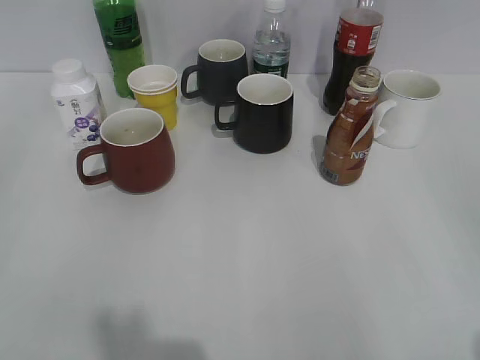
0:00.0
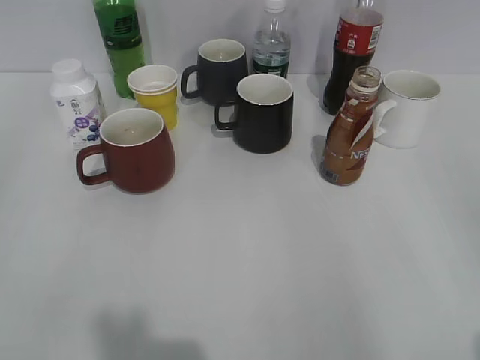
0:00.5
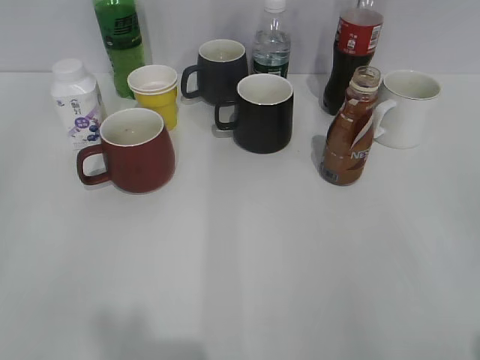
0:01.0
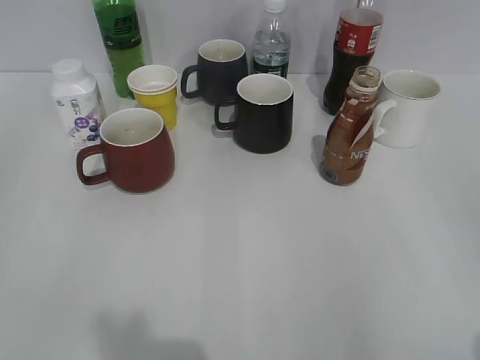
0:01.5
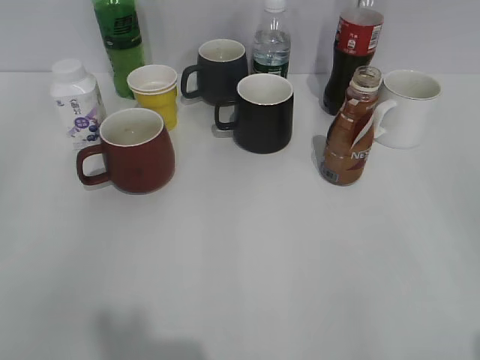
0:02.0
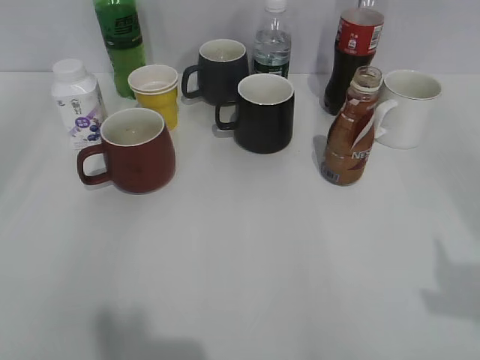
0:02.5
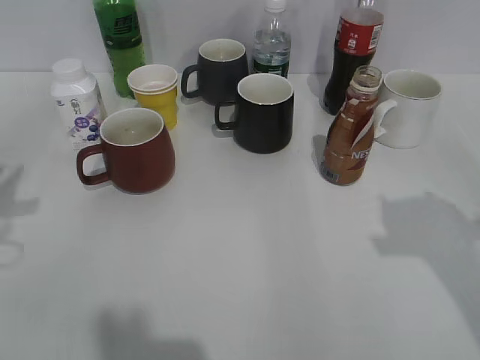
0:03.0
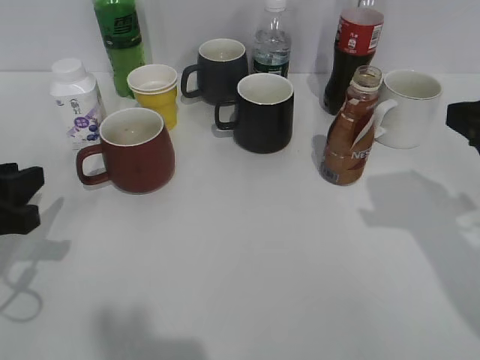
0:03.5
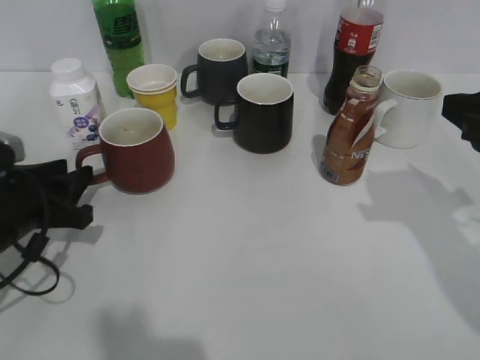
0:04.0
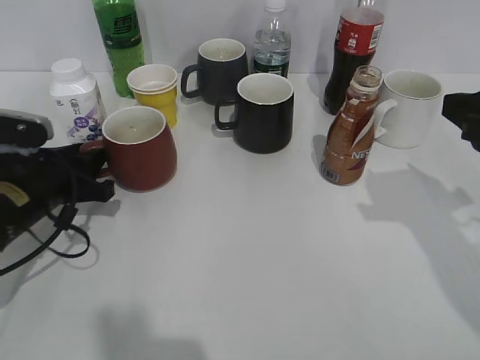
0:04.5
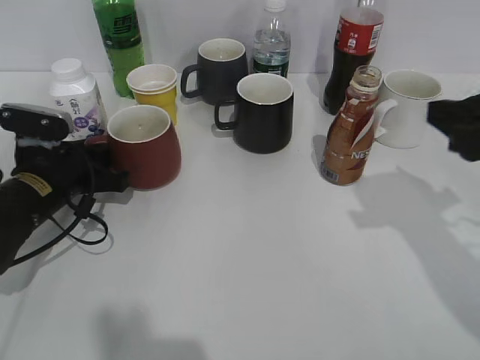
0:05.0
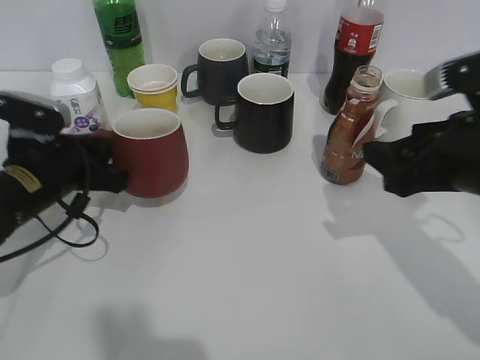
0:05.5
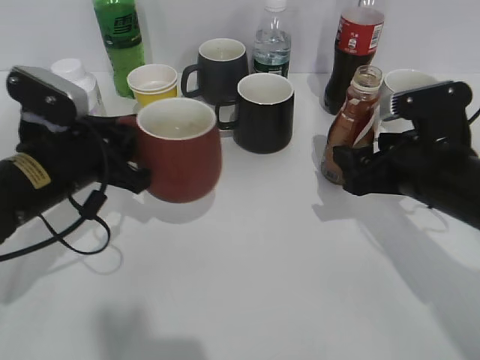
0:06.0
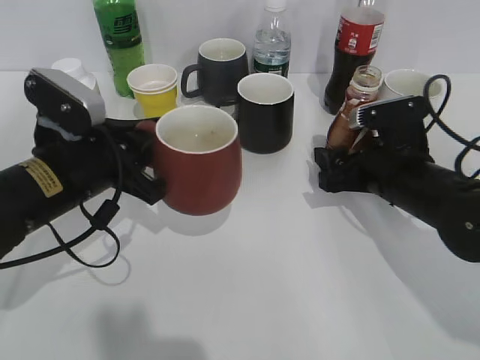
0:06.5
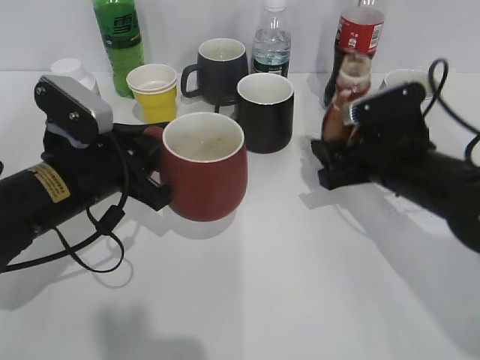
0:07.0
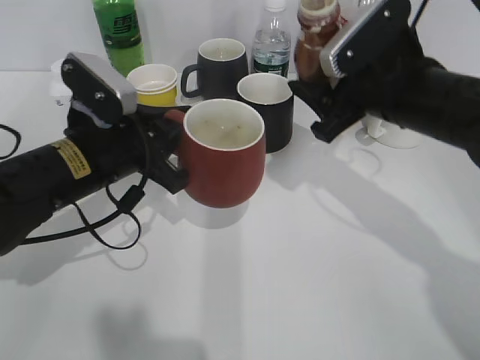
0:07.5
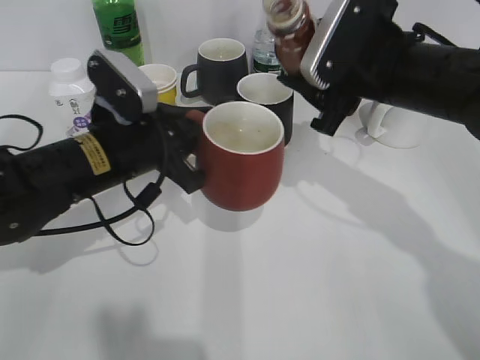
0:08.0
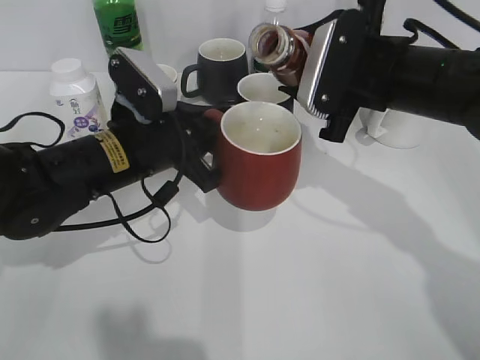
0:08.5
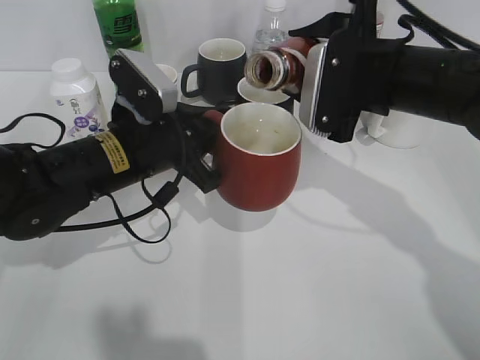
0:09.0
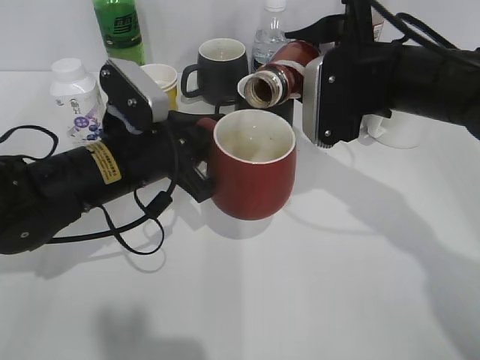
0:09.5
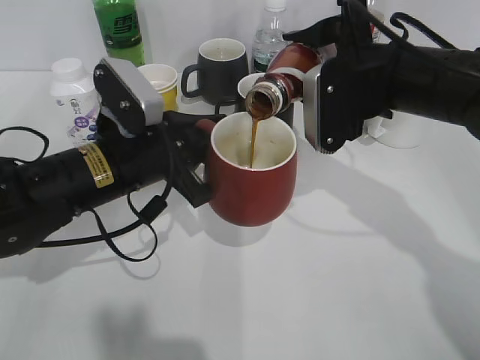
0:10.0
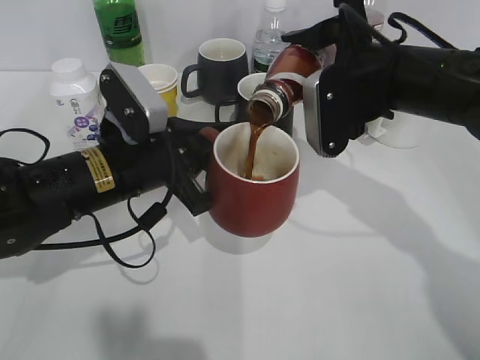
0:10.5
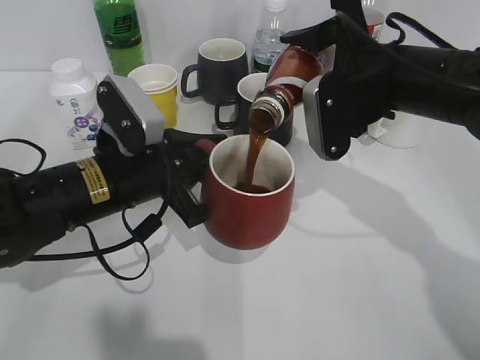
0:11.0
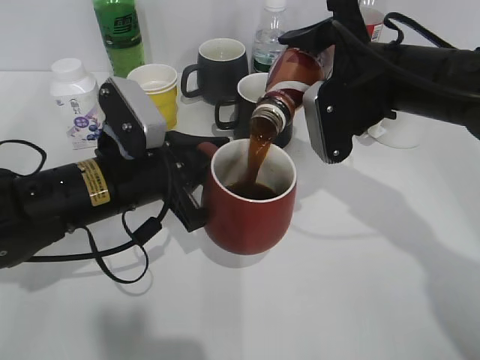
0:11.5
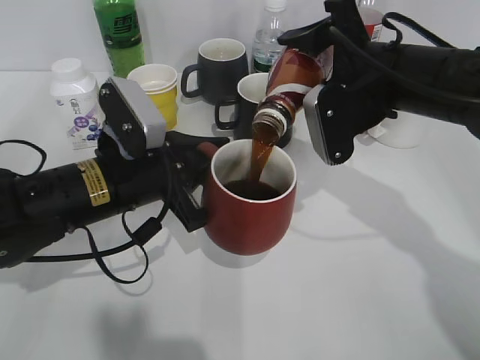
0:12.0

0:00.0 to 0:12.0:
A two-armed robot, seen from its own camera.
Step, 0:02.0 to 0:05.0: Grasp the red cup with left gripper.
Step, 0:05.5 to 0:06.5: Grasp the bottle with coffee with right gripper.
0:02.0 to 0:04.0: The left gripper is displaced forward and downward by some 25 cm. Meanwhile the right gripper travels forward by approximately 20 cm.
0:04.0 to 0:06.0: The right gripper moves downward and to the left, roughly 10 cm, and opens its fingers. Meanwhile the left gripper heads to the right, covering about 5 cm, and closes up.
0:06.0 to 0:08.0: The right gripper shifts approximately 10 cm upward, to the left and forward, and closes up; the left gripper goes approximately 5 cm to the right.

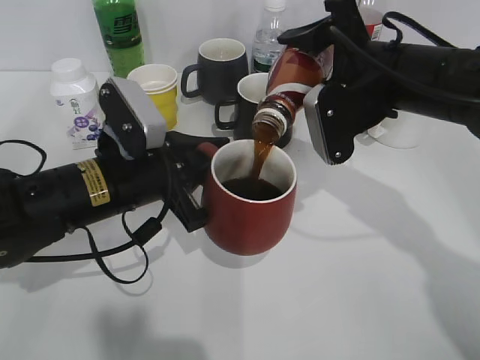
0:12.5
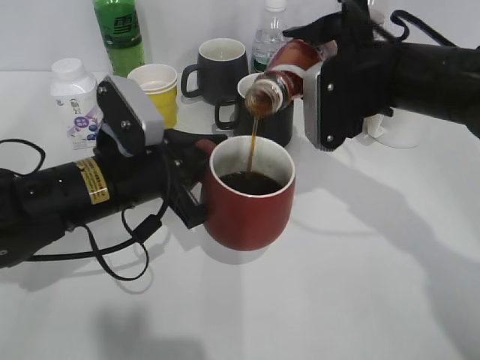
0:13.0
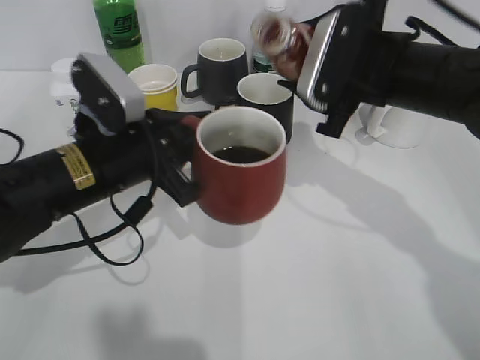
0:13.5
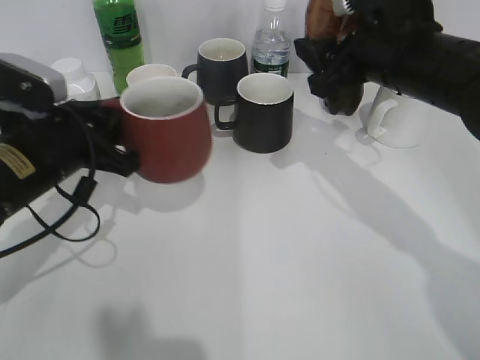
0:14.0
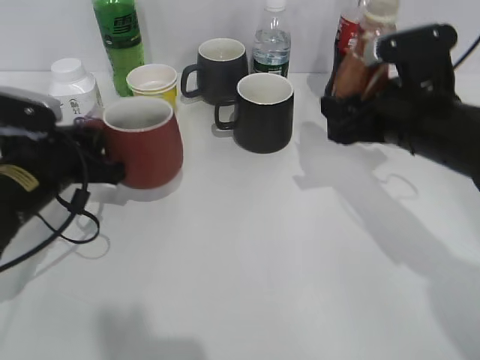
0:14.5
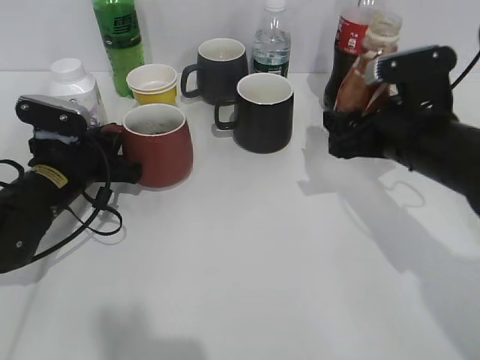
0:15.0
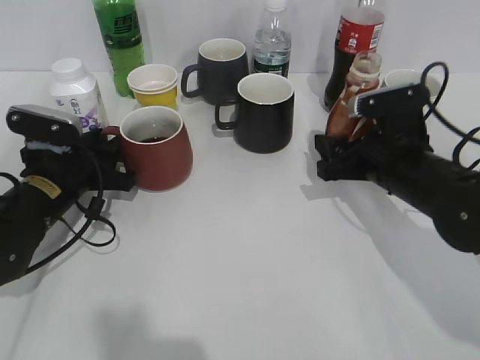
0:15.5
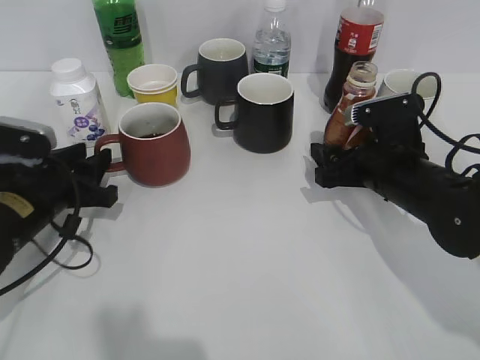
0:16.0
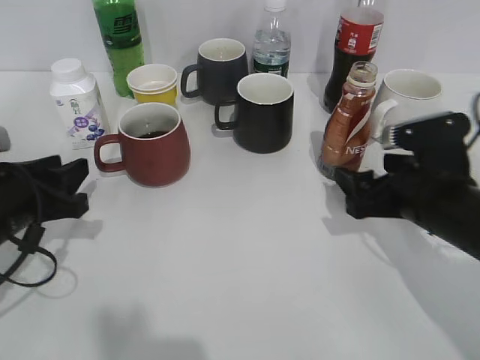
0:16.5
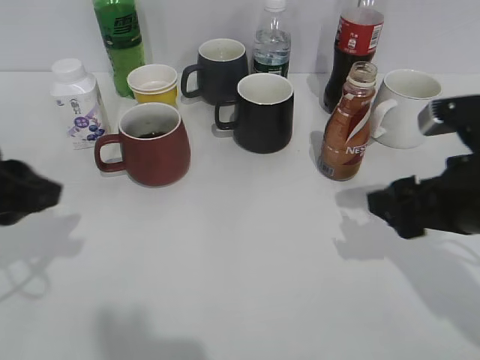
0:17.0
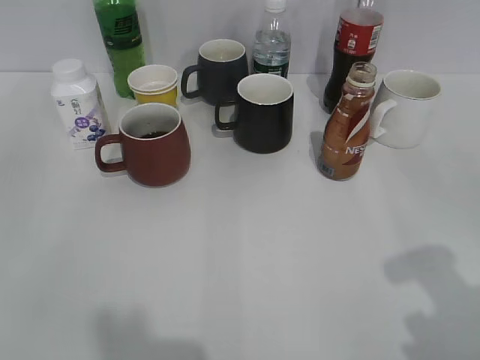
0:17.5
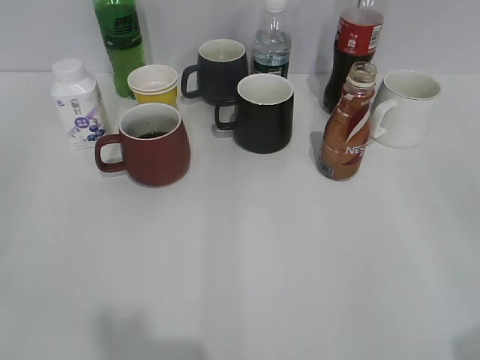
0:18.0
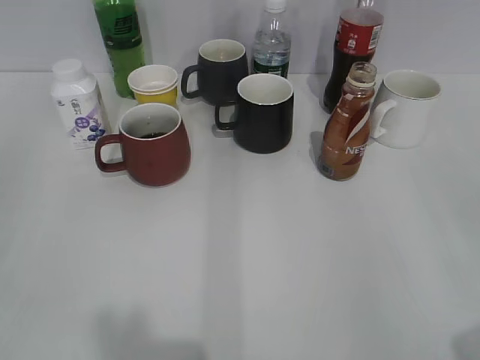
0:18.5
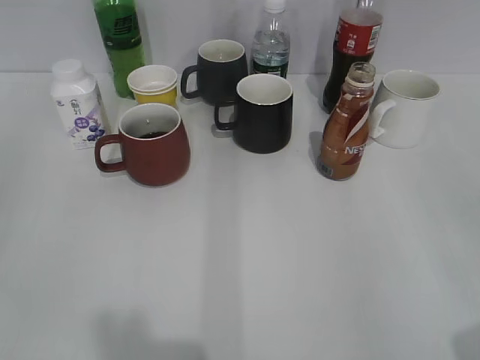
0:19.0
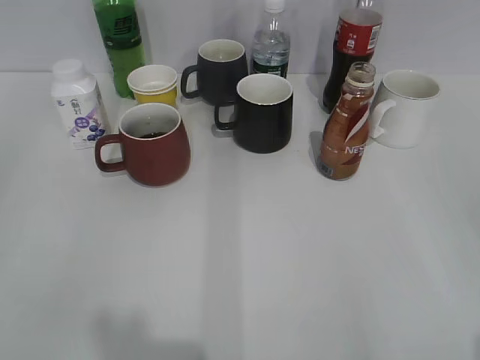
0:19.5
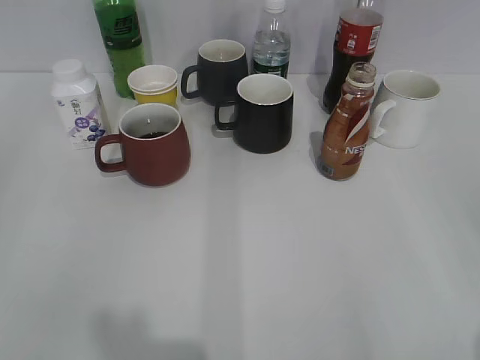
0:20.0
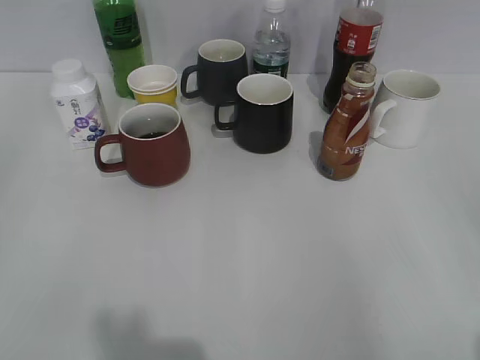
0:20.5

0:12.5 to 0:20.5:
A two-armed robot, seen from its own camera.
Step, 0:14.0 to 0:14.5: Place the red cup on the table with left gripper.
Step, 0:15.0 to 0:16.5: Place the coffee bottle on the table with right gripper.
0:12.5 to 0:14.5: The left gripper goes about 10 cm to the left; the right gripper shifts by roughly 5 cm.
0:14.5 to 0:16.5: The left gripper moves backward, roughly 5 cm, and opens; the right gripper shifts approximately 5 cm downward, and opens.
0:16.5 to 0:18.5: The right gripper is displaced backward, upward and to the right by roughly 30 cm; the left gripper moves backward and upward, about 25 cm.

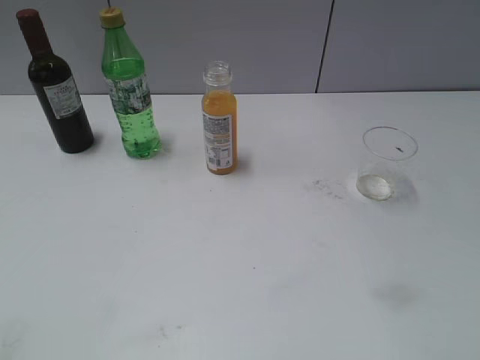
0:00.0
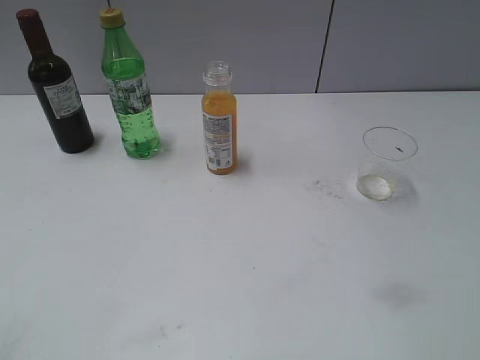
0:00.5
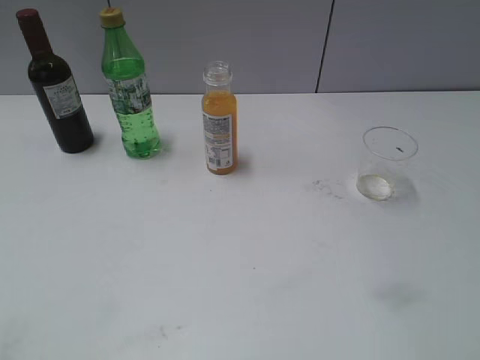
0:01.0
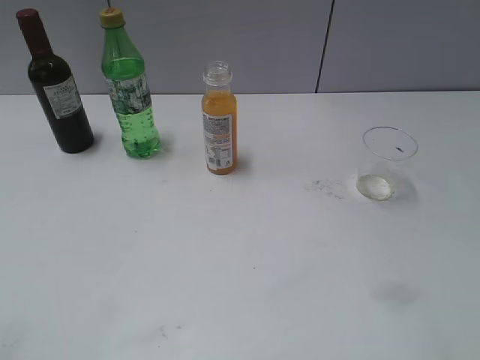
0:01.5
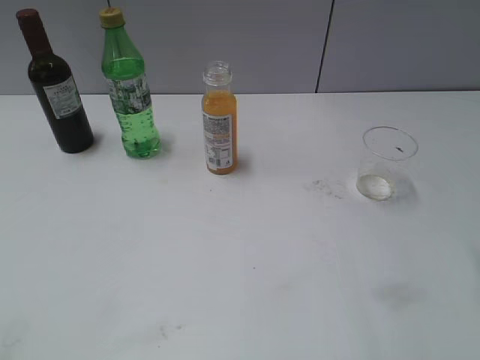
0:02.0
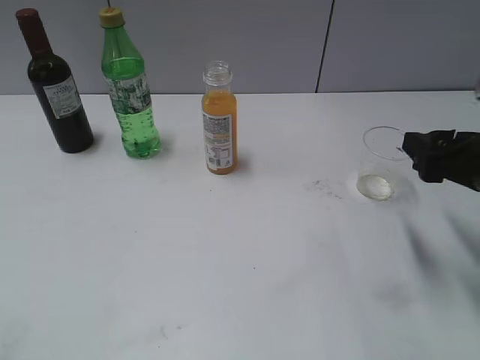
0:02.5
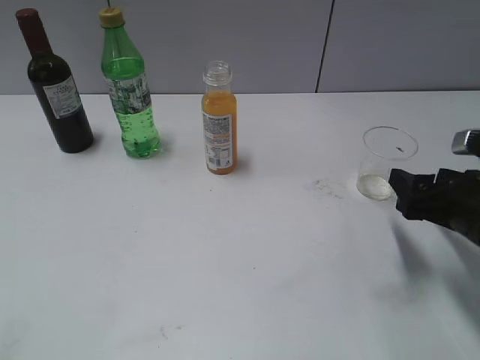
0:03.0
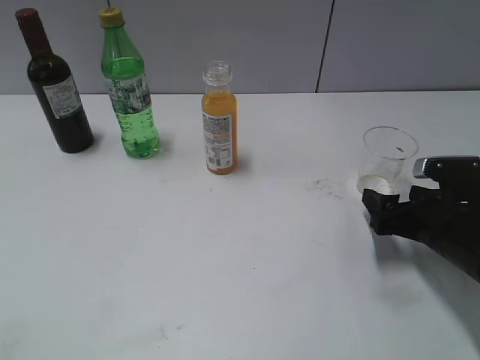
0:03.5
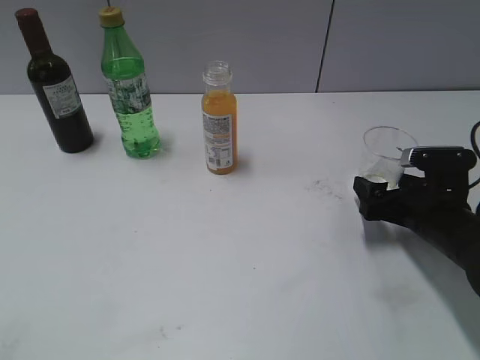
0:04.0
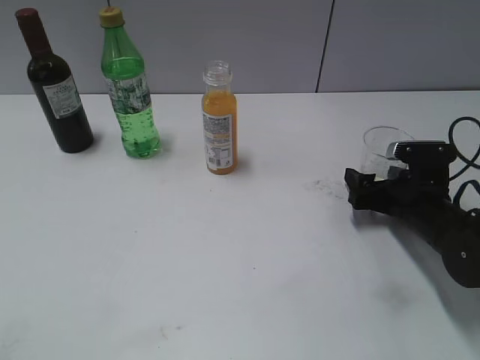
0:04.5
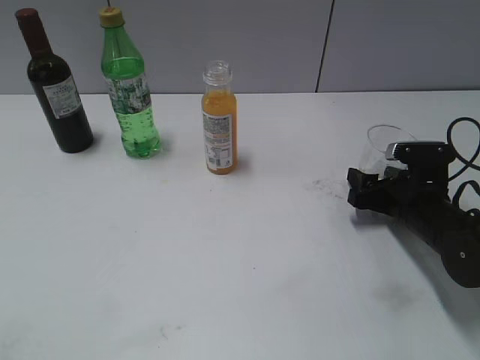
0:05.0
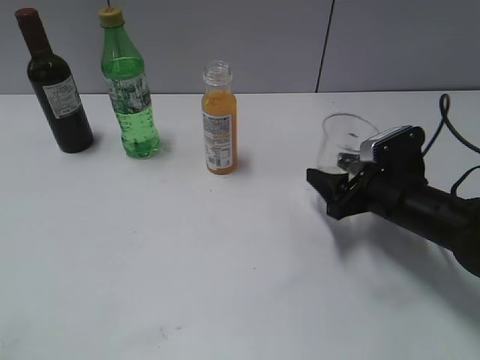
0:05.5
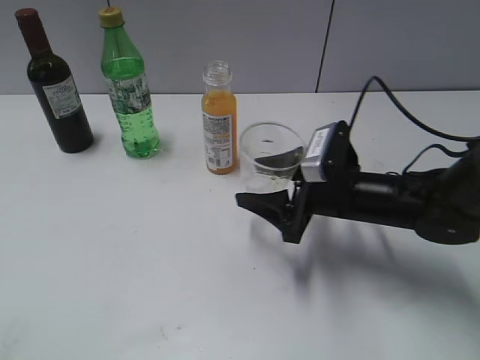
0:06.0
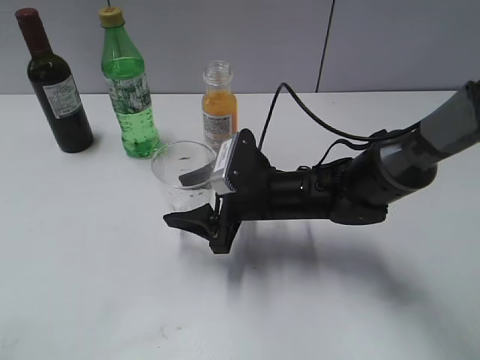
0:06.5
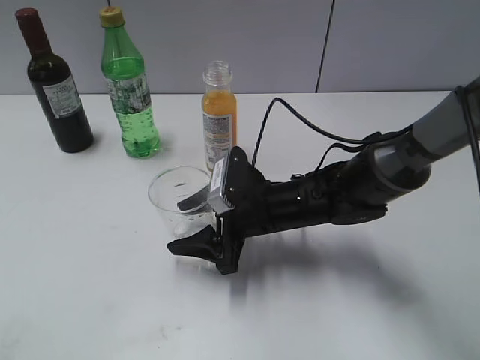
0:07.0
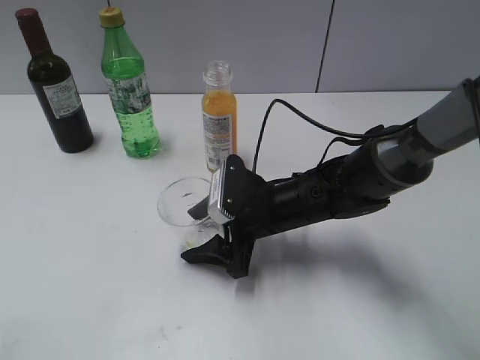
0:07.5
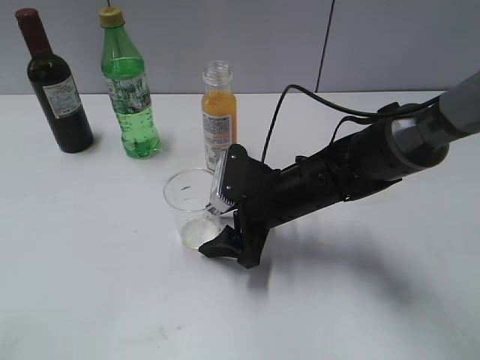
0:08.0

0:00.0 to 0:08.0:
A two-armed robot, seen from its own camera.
Step, 0:02.5 to 0:04.5: Grasp the transparent cup with right gripper.
0:02.0 to 0:04.0: The right gripper shifts some 25 cm downward and forward, and opens its fingers.
0:04.0 to 0:06.0: The right gripper is displaced to the left by roughly 10 cm, and closes its fingers.
0:06.0 to 0:08.0: The right gripper moves to the left, about 10 cm, and opens.
